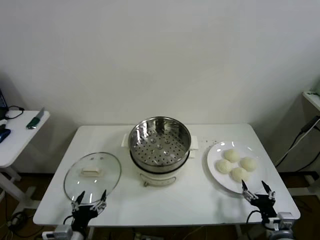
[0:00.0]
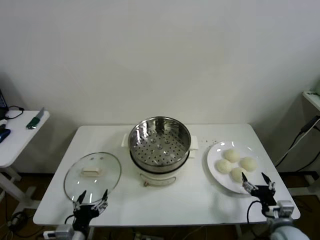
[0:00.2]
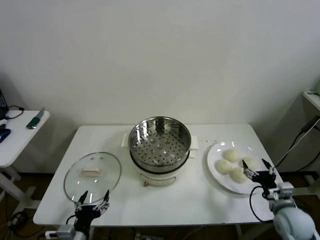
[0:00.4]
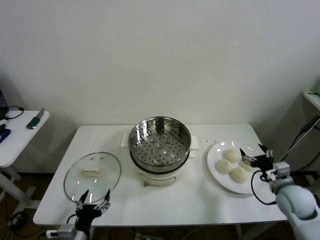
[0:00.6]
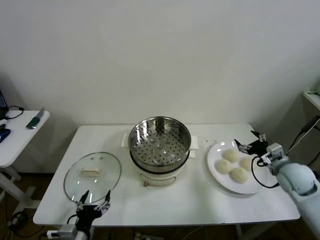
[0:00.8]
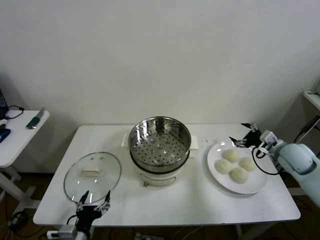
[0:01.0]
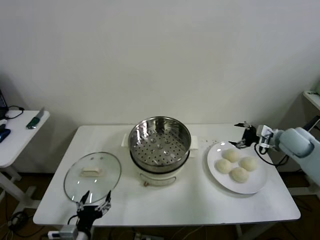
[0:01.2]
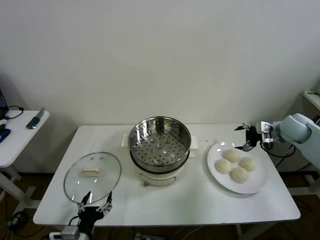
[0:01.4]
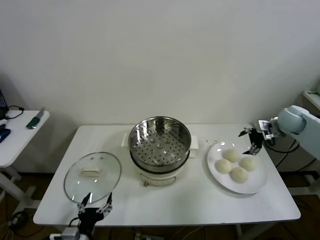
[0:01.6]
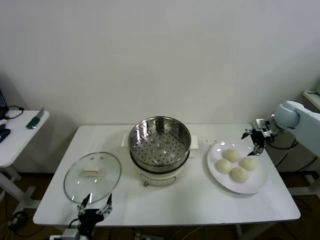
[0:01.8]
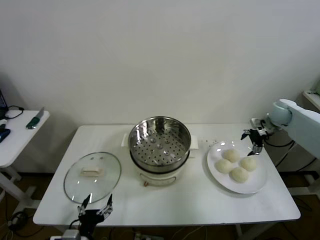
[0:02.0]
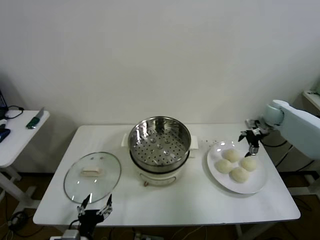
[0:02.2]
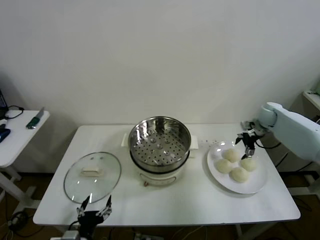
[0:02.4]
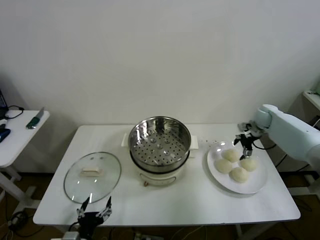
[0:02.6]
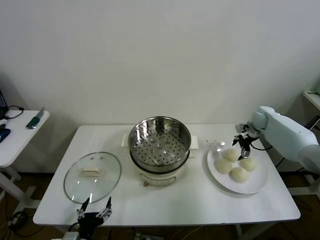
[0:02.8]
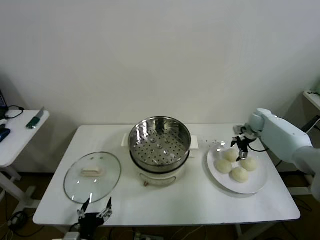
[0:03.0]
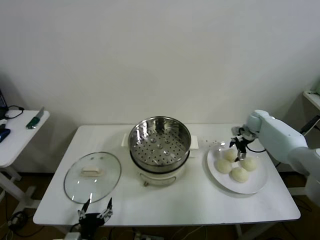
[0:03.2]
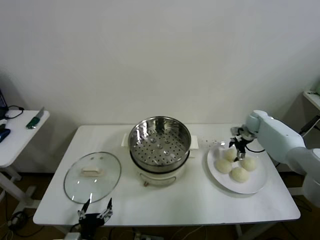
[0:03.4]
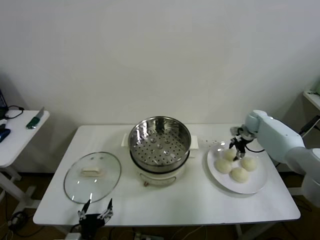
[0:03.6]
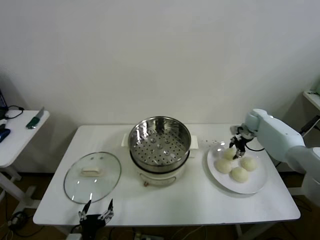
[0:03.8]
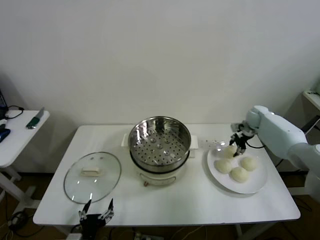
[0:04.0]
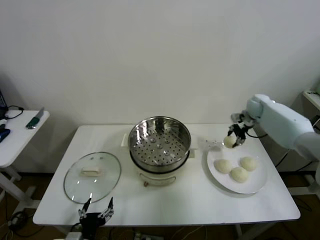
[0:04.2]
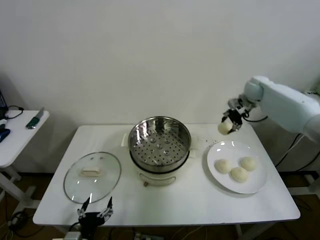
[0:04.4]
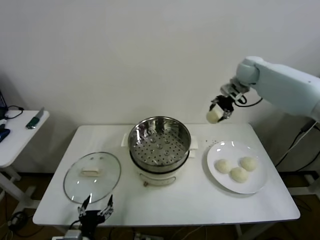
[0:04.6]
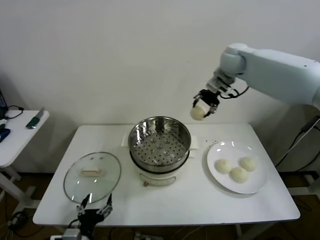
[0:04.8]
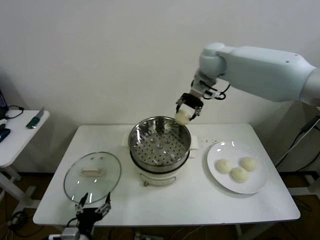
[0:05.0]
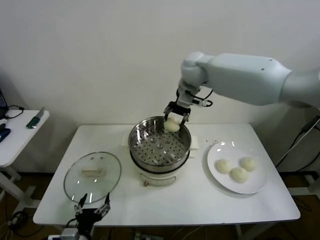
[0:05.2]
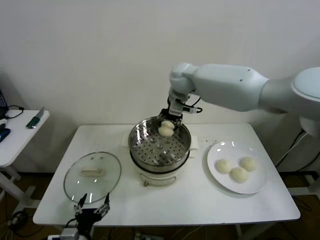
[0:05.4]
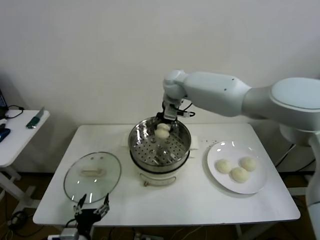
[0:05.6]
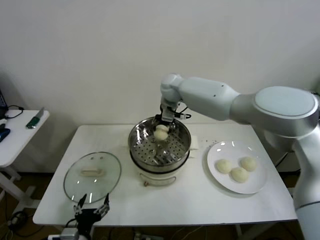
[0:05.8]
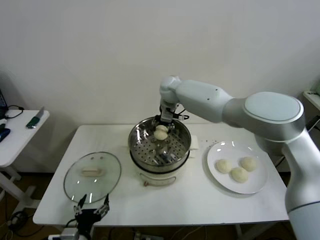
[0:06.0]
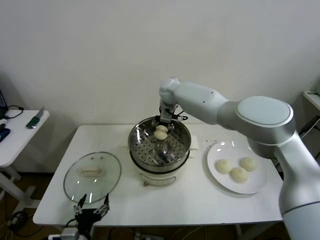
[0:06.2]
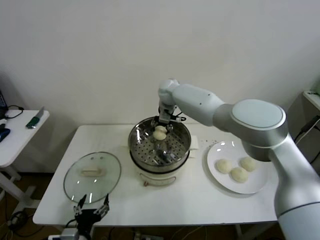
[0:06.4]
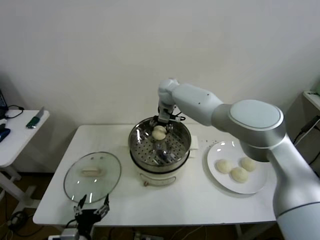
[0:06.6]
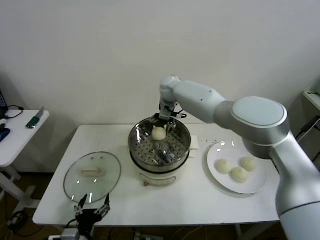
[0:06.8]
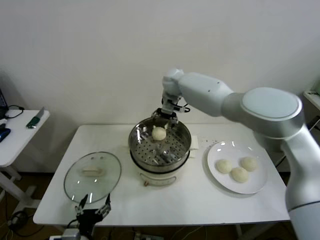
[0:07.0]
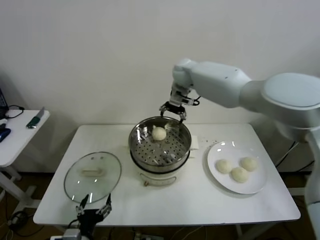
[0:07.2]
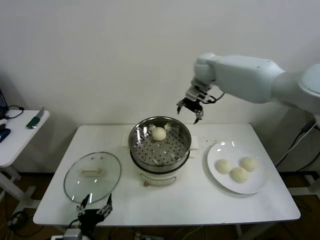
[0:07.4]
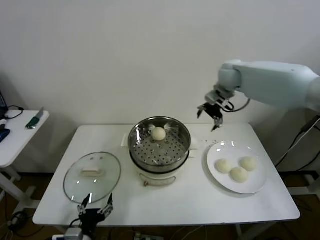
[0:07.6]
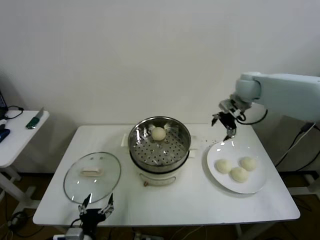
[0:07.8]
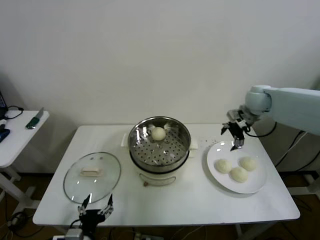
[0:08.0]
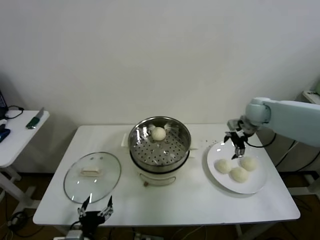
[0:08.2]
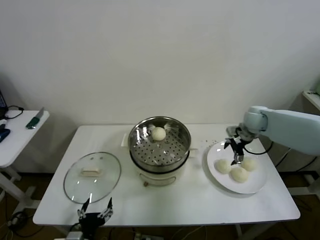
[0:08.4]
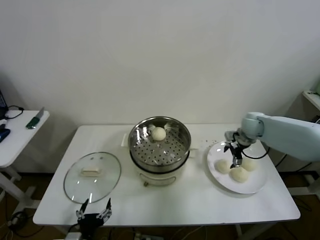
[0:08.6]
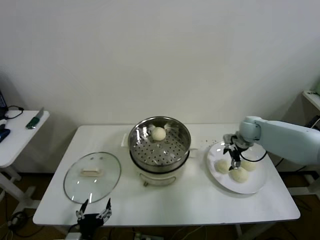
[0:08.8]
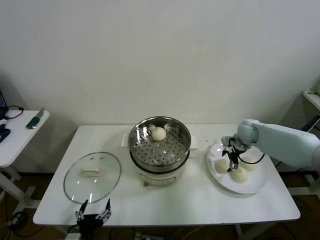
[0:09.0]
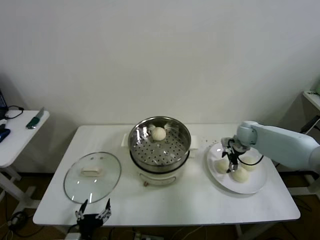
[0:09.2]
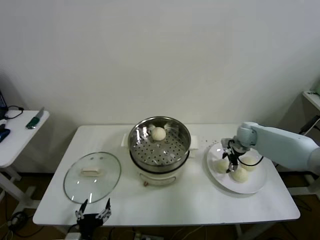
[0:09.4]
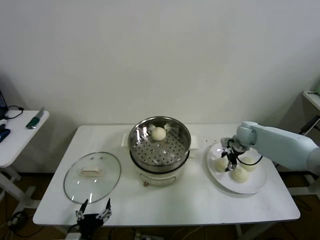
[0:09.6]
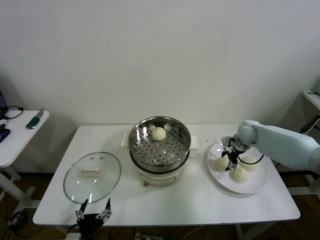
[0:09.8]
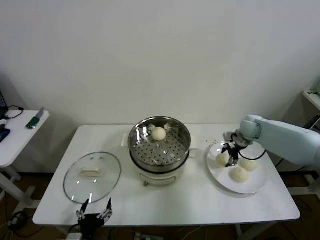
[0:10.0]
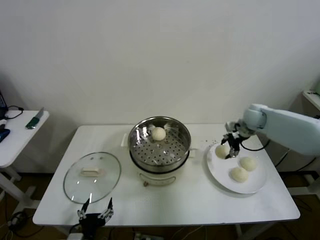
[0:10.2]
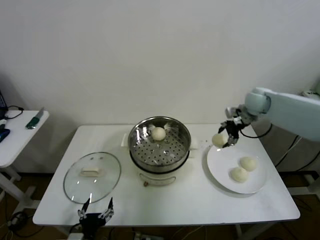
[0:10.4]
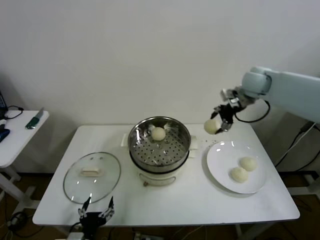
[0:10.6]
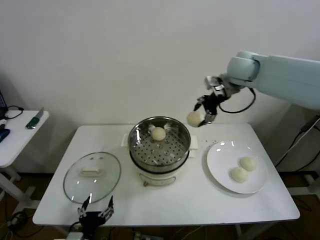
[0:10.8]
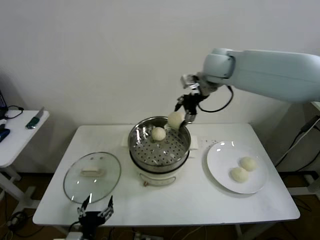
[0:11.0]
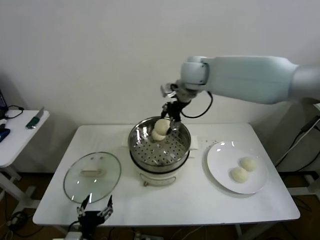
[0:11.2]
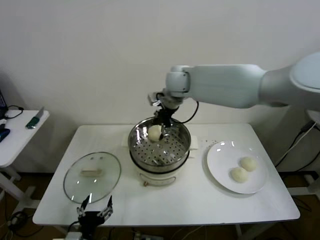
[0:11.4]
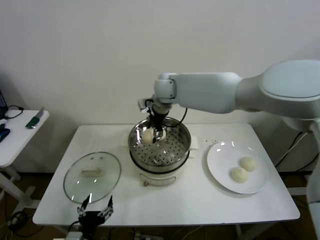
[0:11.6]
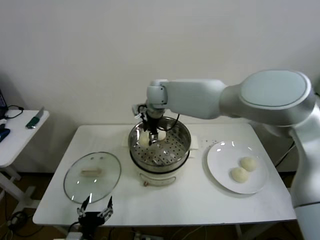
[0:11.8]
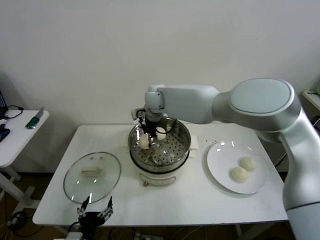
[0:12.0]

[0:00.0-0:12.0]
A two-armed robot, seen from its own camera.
Step, 0.0 to 3.6 s: Grasp the baozi in the plate with right gripper.
Step, 3.8 to 6.6 s: Place the baozi on the steamer with right gripper.
Step, 6.8 to 9.4 s: Grasp the baozi in the plate with right gripper.
1.6 to 3.0 s: The right gripper goes approximately 15 cm downward and forward.
3.0 to 4.4 s: The right gripper heads upward, covering roughly 15 cm, and closes.
4.4 to 6.0 s: The right gripper travels to the left by about 30 cm.
6.0 to 7.6 s: The right gripper travels to the right by about 20 cm, and opens its fingers.
7.6 to 9.0 s: The right gripper is displaced downward and to the right by some 25 cm.
9.0 to 10.4 s: The right gripper travels upward by approximately 15 cm, and closes its fingers.
10.4 to 12.0 s: The right gripper travels to the left by roughly 35 cm.

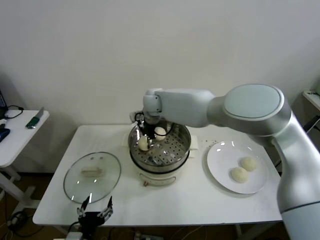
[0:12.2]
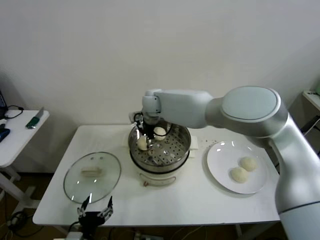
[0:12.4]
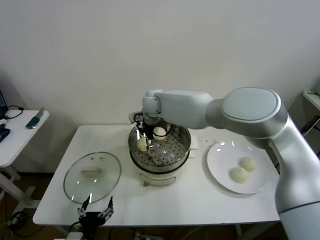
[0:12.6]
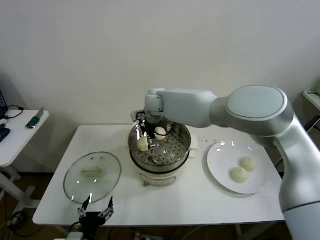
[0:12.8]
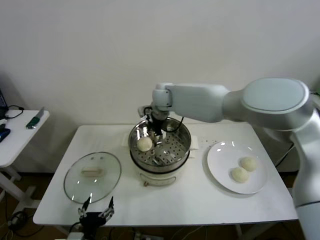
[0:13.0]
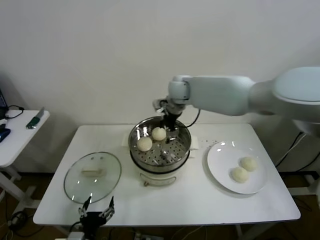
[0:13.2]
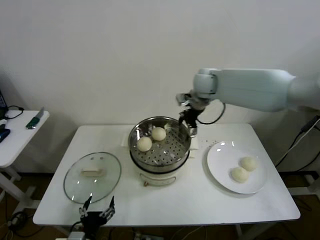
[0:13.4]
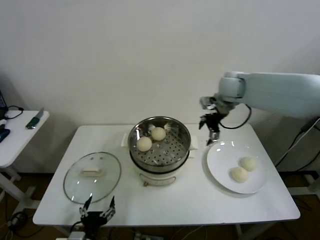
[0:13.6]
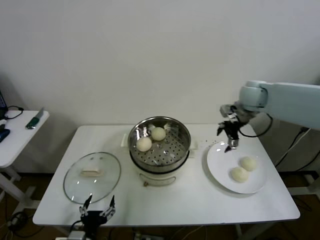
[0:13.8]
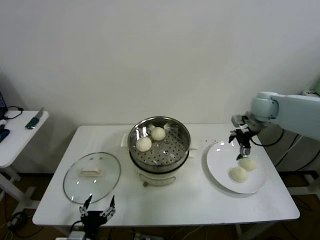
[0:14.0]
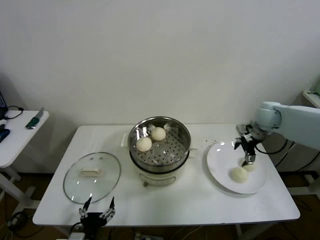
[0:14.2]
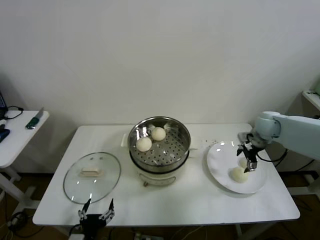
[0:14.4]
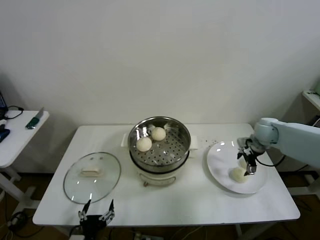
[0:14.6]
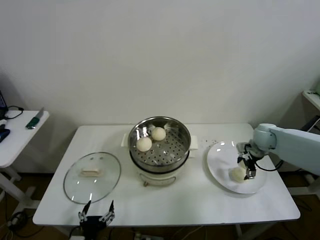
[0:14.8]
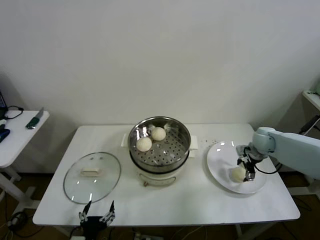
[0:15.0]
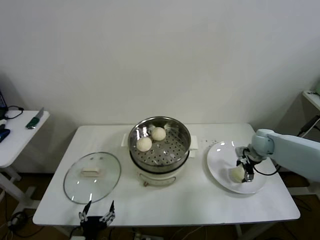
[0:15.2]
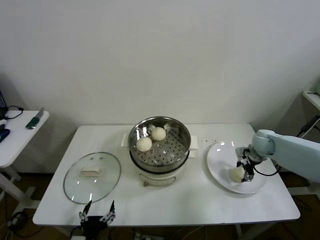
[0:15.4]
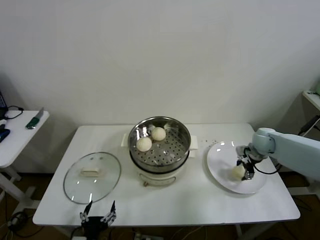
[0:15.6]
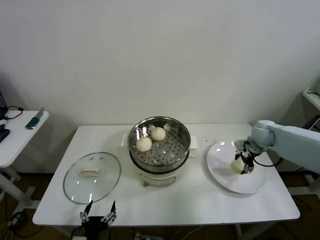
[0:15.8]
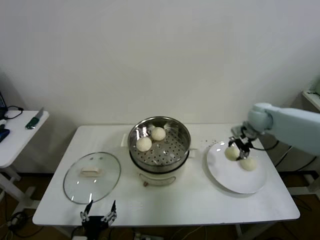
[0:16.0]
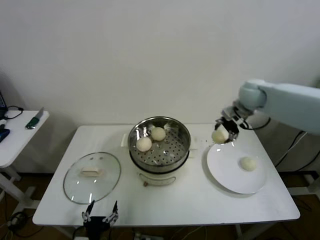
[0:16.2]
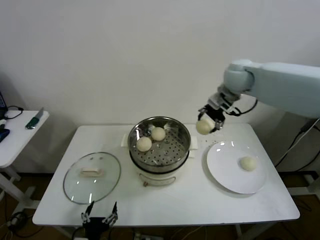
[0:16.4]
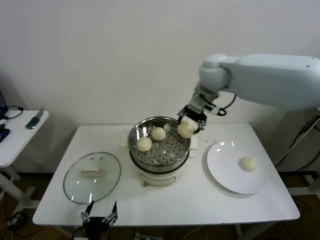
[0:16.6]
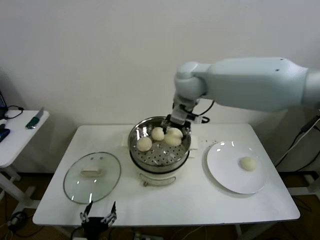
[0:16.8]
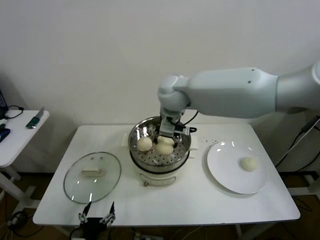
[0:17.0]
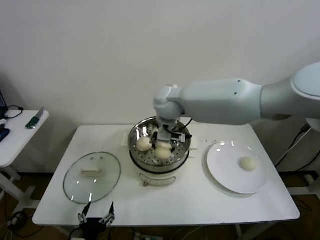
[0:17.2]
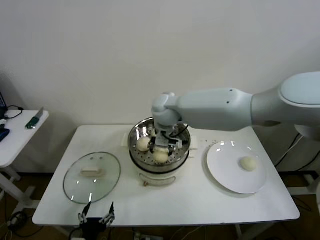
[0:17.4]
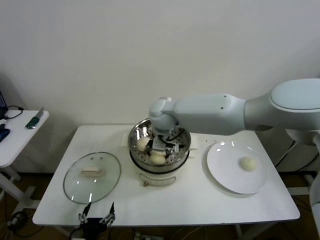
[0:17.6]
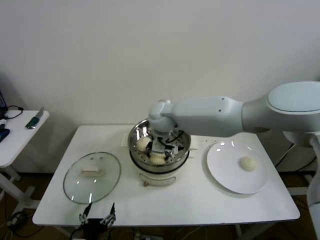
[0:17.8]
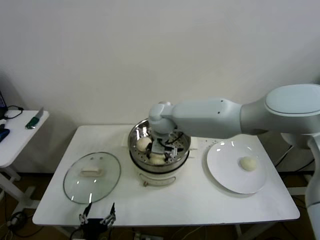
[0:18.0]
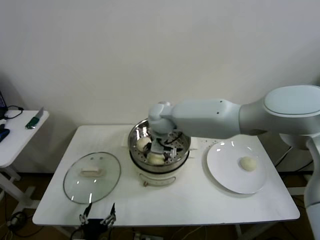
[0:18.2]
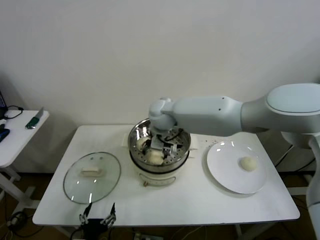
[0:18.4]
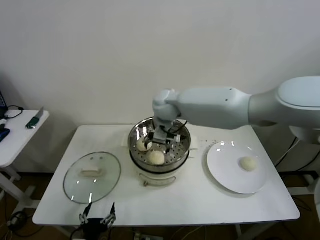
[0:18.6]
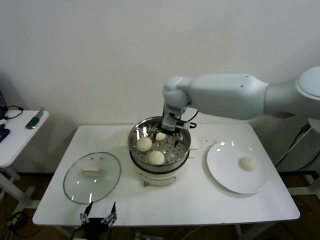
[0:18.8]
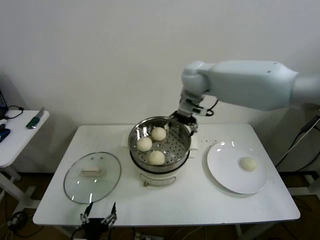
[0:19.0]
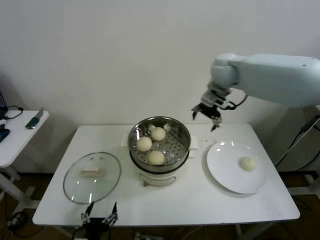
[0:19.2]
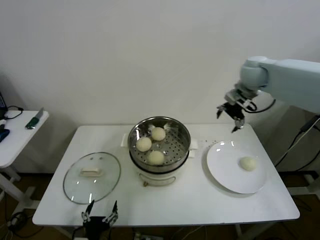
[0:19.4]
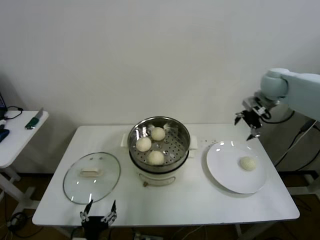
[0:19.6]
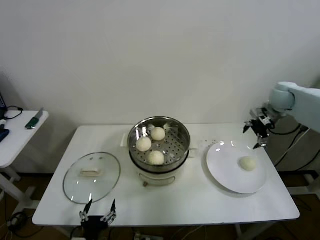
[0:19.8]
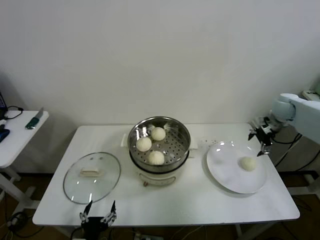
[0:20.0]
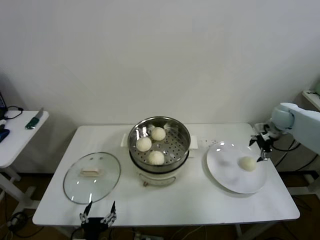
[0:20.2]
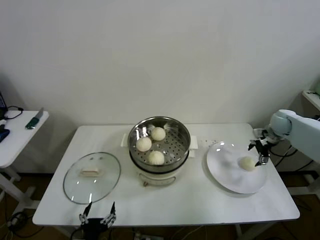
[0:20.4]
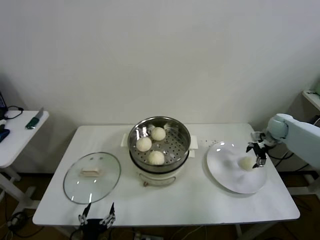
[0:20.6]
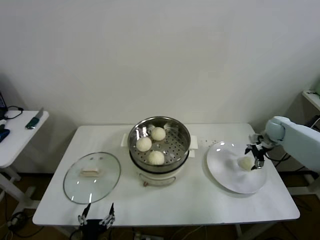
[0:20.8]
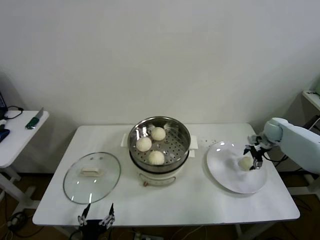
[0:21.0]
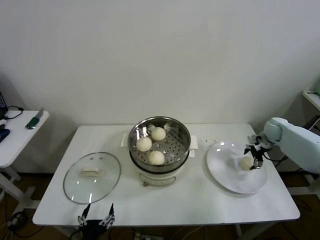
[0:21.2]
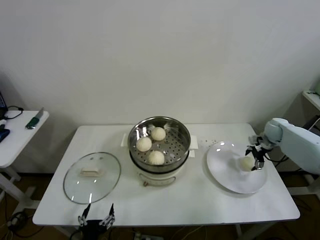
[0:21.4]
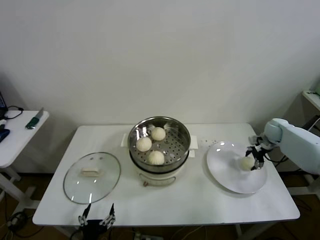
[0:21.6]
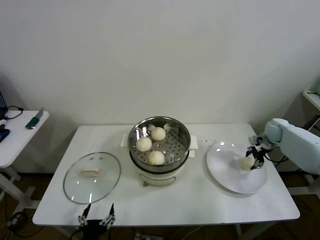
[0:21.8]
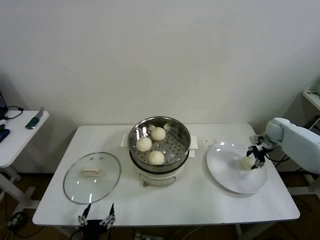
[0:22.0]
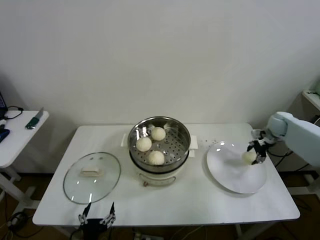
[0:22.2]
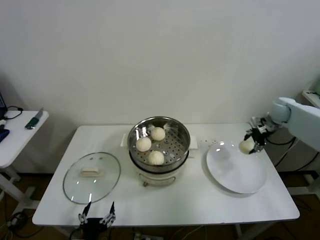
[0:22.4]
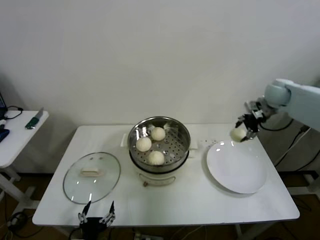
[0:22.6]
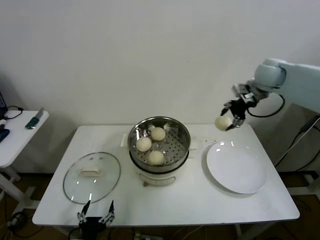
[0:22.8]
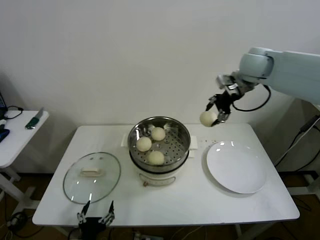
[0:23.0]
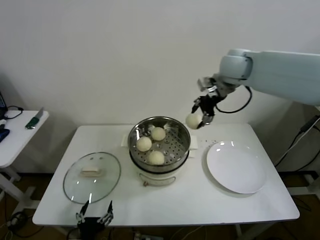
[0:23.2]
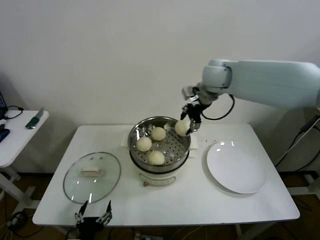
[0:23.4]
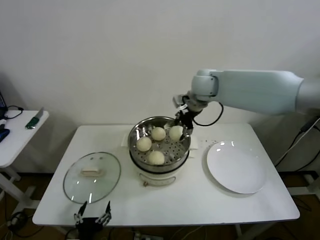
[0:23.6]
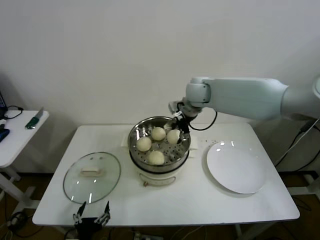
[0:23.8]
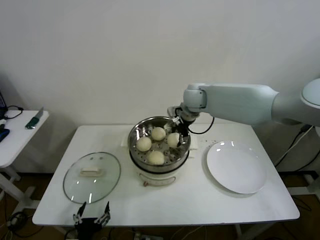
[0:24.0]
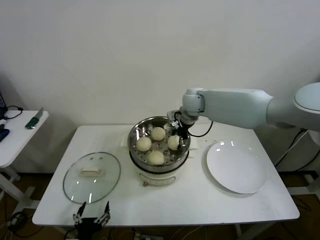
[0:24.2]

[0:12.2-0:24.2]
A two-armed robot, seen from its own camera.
Step, 12.8 to 15.4 s: Grasp the baozi in the plate with right gripper.
Step, 15.6 to 18.0 s: Place the baozi on the steamer with right gripper.
Step, 18.2 to 21.6 s: Grasp the baozi in the plate with right gripper.
12.2 to 13.8 s: The right gripper is displaced to the right by roughly 35 cm, and opens.
13.8 to 15.2 s: The right gripper is displaced downward and to the right by some 20 cm.
15.2 to 16.6 s: The right gripper moves upward and to the left, roughly 40 cm, and closes.
16.6 to 18.2 s: The right gripper shifts approximately 20 cm downward and to the left.
18.2 to 19.8 s: The right gripper moves to the right, about 40 cm.
19.8 to 21.2 s: The right gripper is displaced downward by approximately 15 cm.
21.2 to 22.6 s: The right gripper heads upward, covering roughly 15 cm, and closes its fingers.
22.6 to 24.2 s: The right gripper travels to the left by roughly 30 cm.
